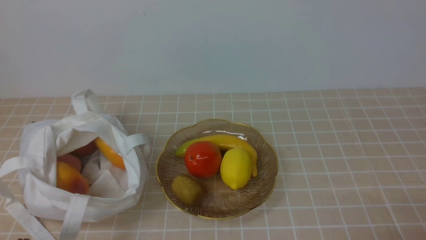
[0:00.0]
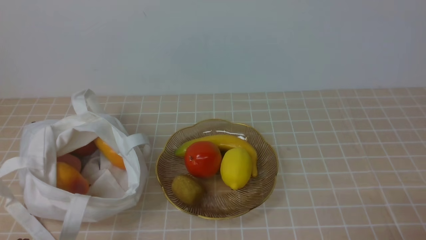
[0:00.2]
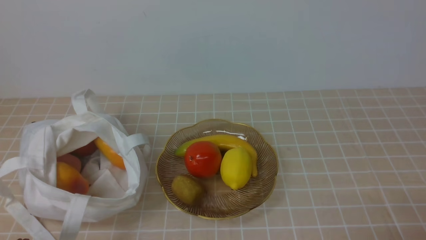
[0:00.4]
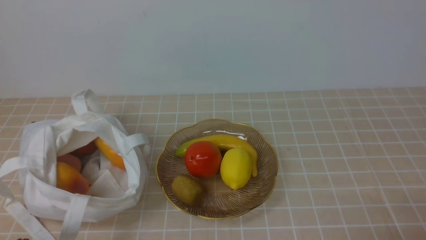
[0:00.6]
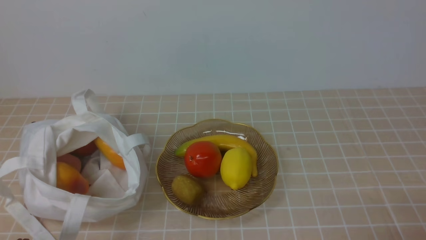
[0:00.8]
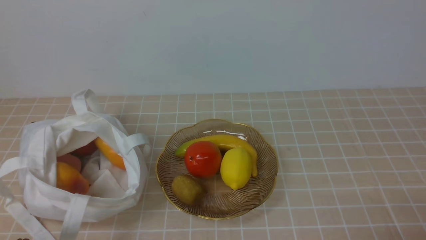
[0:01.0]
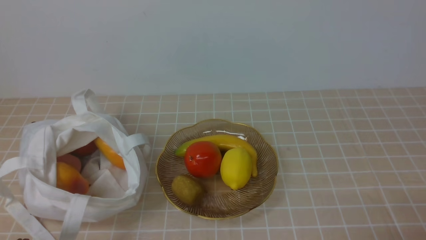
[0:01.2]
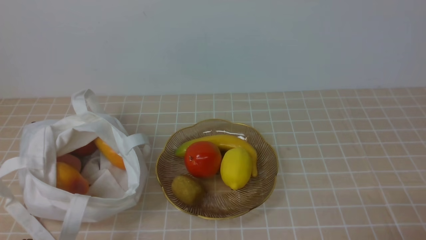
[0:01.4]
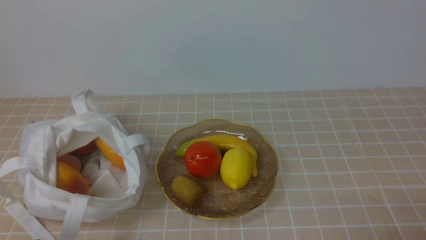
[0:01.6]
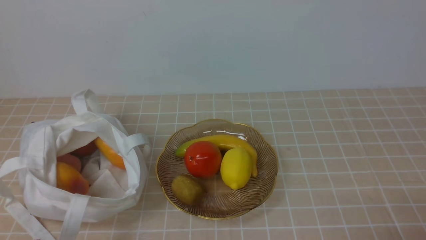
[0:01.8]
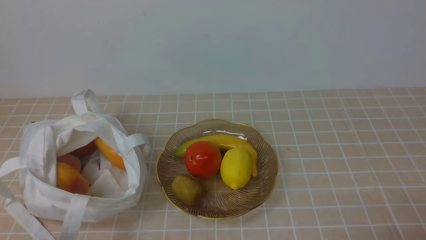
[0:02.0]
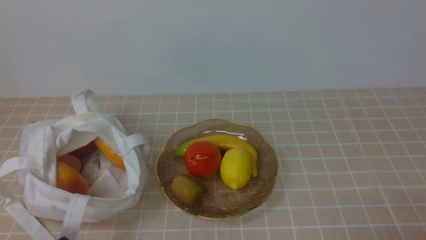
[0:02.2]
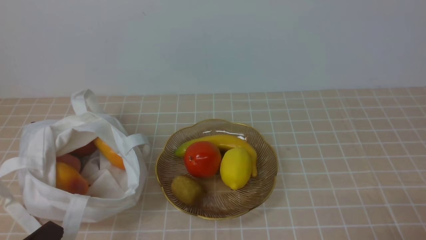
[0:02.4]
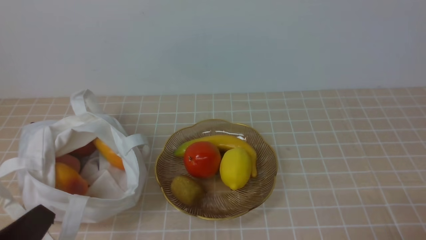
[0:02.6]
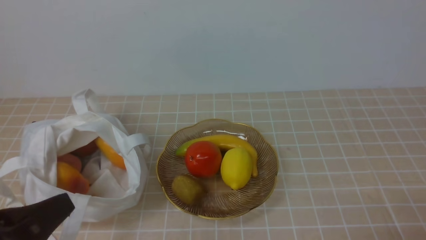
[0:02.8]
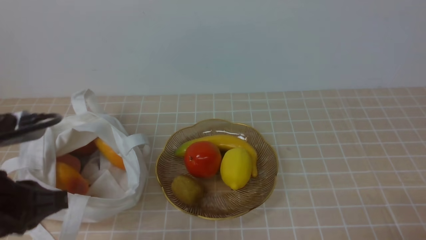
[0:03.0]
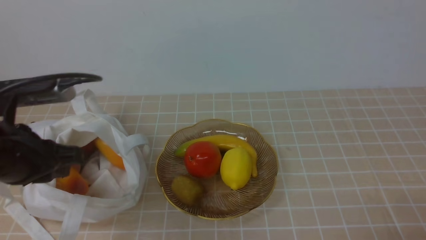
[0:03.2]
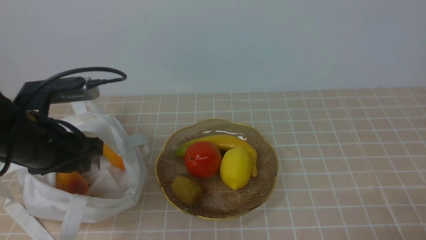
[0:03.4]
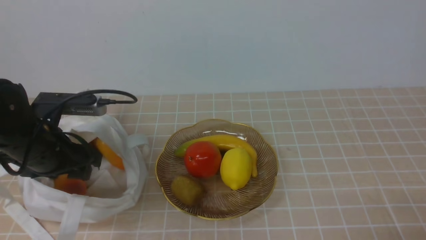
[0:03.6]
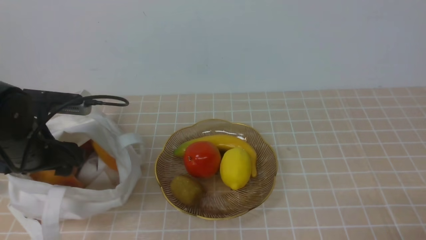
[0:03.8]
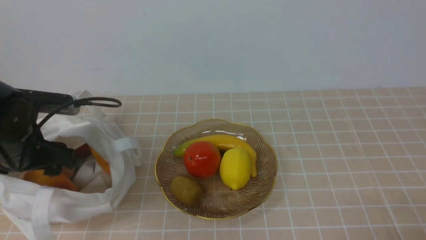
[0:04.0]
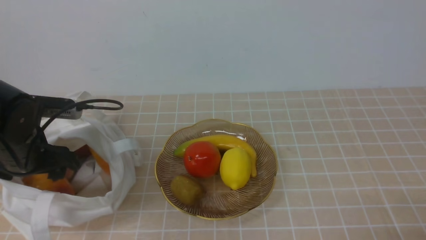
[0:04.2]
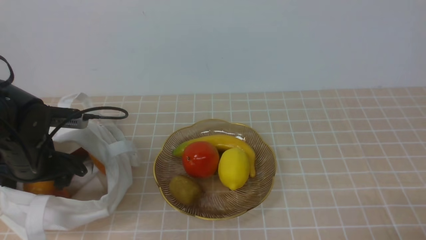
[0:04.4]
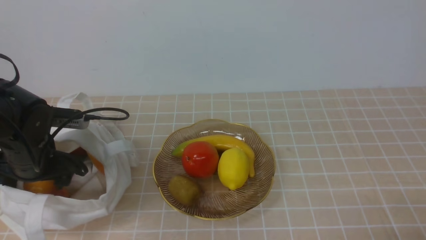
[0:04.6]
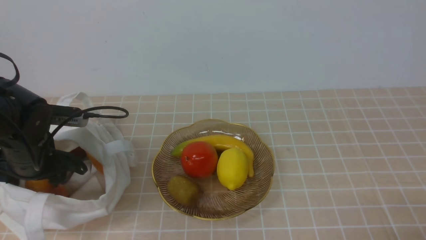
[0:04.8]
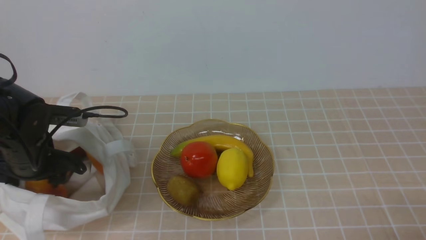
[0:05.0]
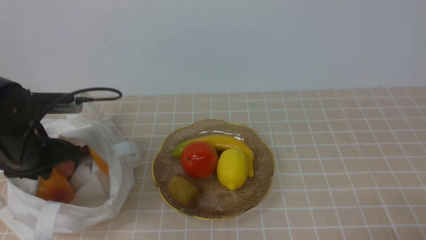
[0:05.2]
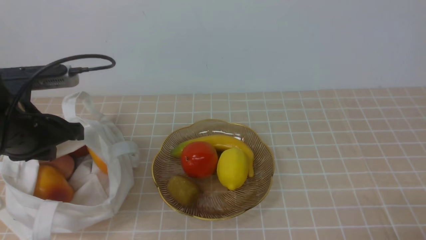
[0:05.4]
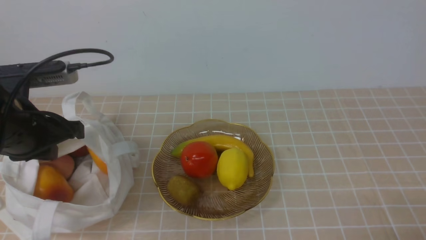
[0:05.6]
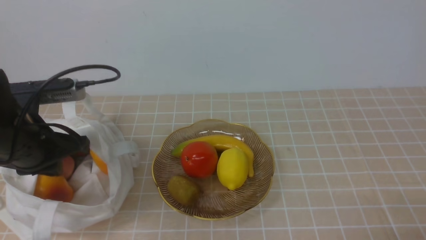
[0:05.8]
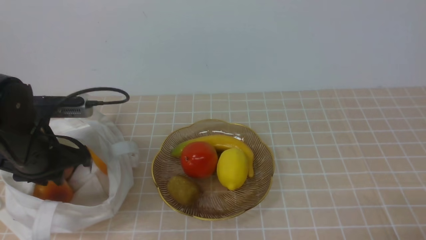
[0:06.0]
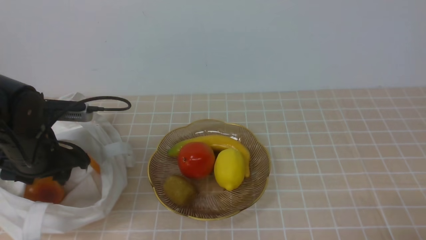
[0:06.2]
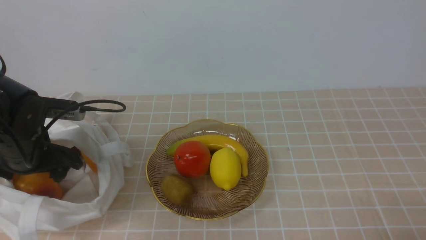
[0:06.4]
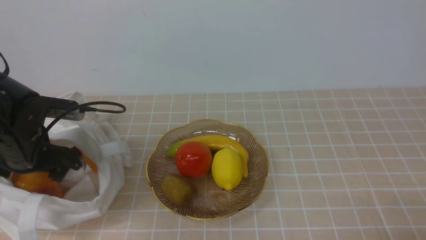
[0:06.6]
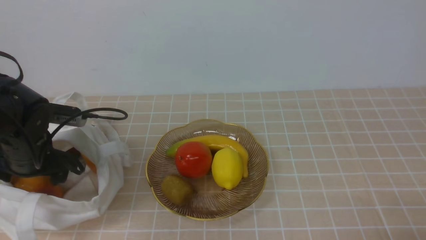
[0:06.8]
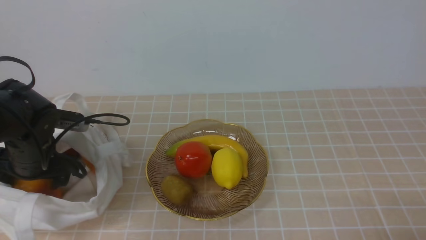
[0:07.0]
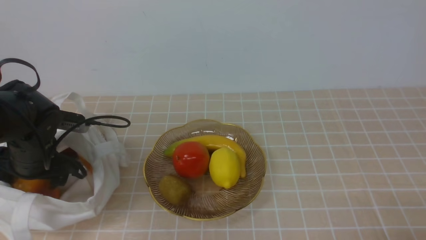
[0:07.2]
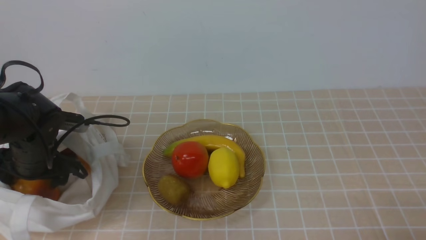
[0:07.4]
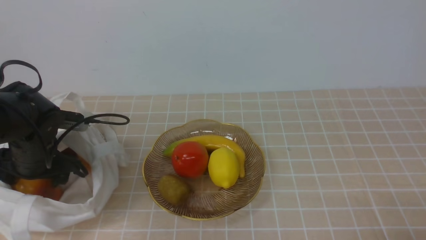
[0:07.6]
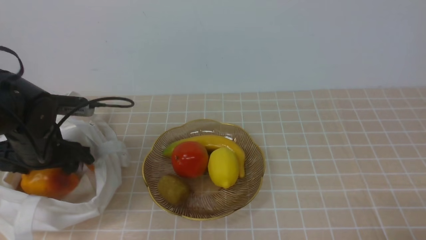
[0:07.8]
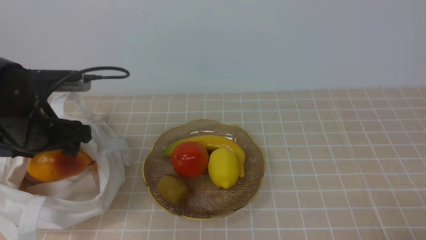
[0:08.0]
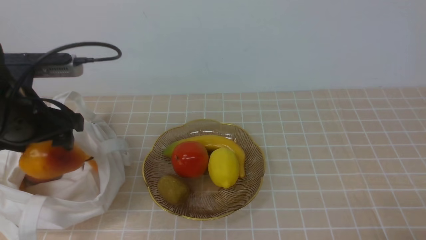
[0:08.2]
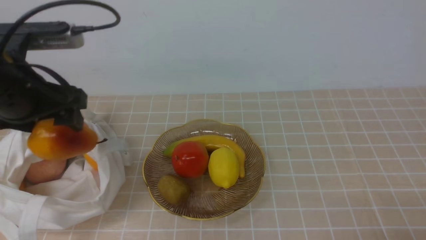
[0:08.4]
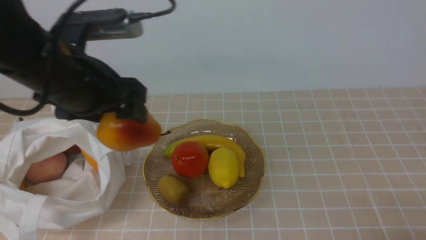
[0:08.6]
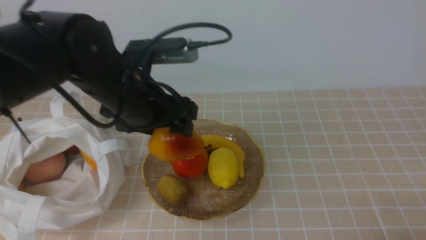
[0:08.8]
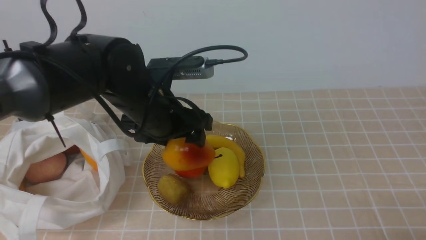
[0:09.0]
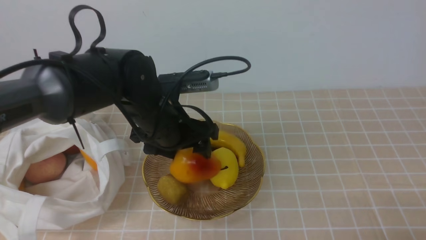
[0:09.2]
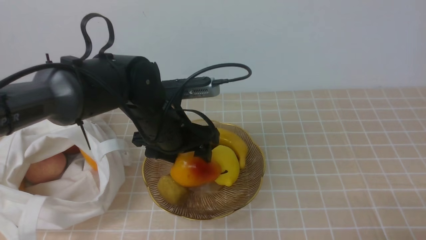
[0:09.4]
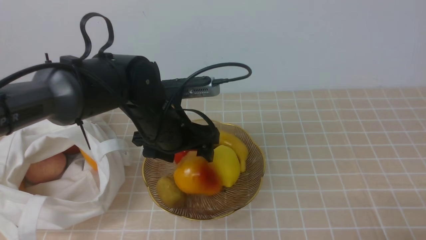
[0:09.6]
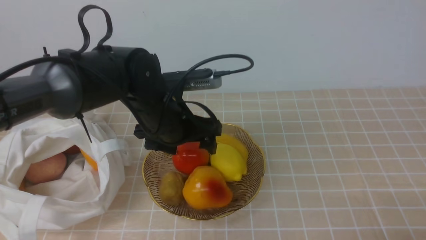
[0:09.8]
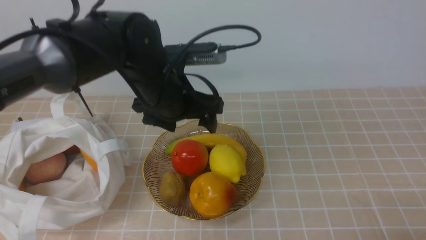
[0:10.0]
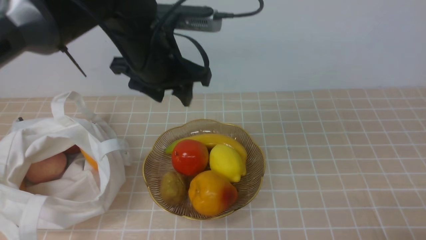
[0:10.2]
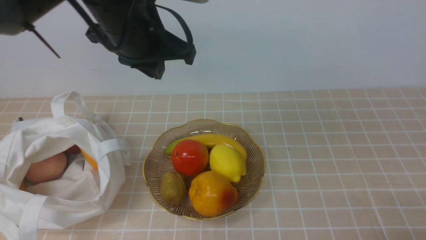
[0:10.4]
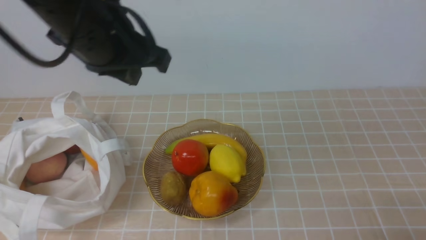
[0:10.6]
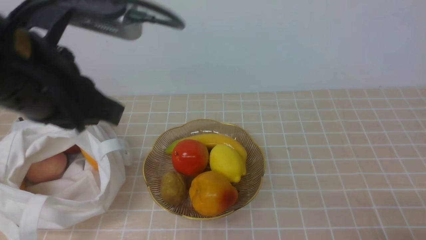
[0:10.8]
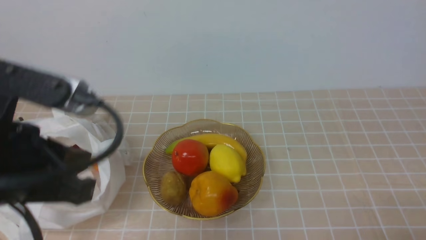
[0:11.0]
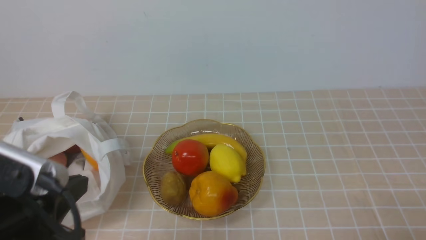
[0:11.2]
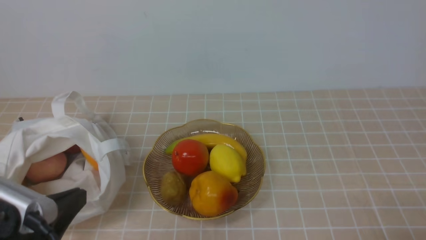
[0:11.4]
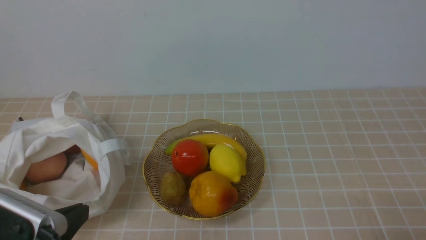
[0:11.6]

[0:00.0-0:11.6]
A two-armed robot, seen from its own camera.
Step, 0:00.0 to 0:07.8: use the left arm to grab a pear from the bag.
Step, 0:08.0 to 0:09.8: use the left arm to put the pear into the empty plate on the right.
0:01.4 to 0:02.8: The left gripper travels upward by approximately 10 cm.
0:02.8 to 0:04.4: The left gripper heads forward, covering approximately 20 cm, and opens up.
0:04.4 to 0:05.8: The left gripper changes place by some 5 cm, and closes its fingers.
0:05.8 to 0:07.2: The left gripper shifts about 5 cm downward, and opens its fingers.
0:07.2 to 0:08.8: The left gripper is displaced to the right and upward by about 20 cm.
0:08.8 to 0:10.2: The left gripper changes place by roughly 5 cm, and closes its fingers.
0:10.2 to 0:11.6: The left gripper goes about 30 cm backward, to the left and downward, and closes up.

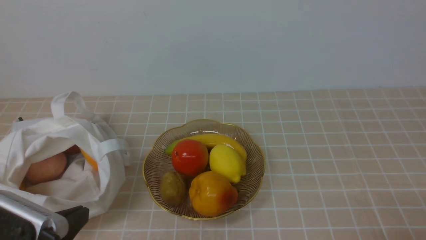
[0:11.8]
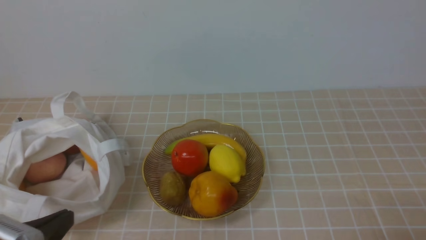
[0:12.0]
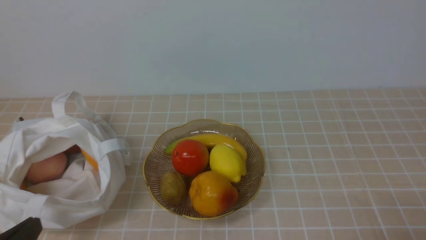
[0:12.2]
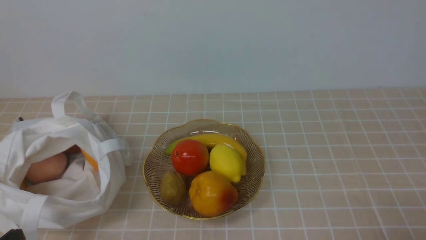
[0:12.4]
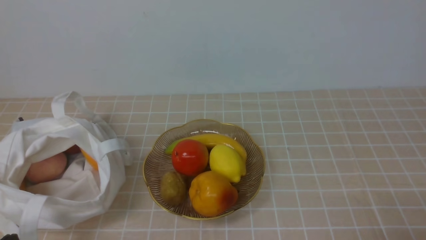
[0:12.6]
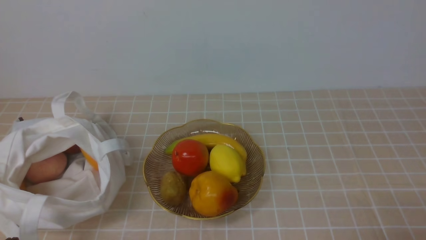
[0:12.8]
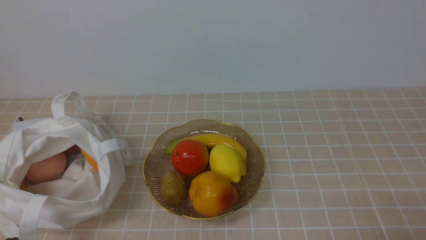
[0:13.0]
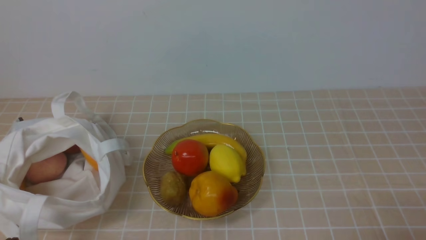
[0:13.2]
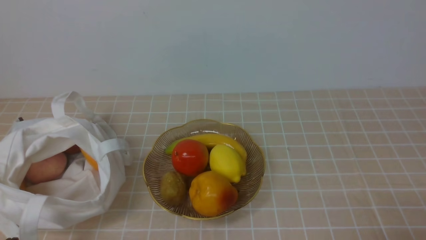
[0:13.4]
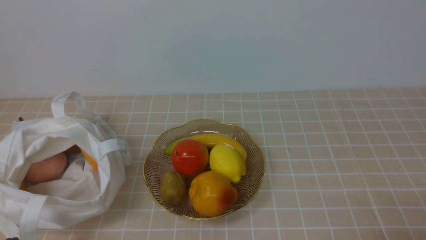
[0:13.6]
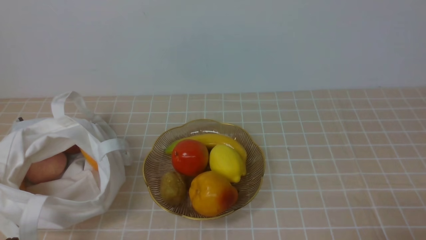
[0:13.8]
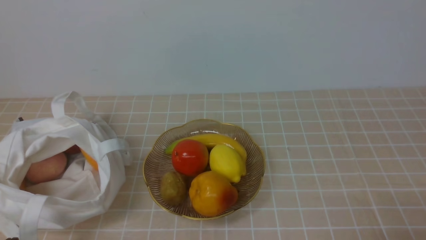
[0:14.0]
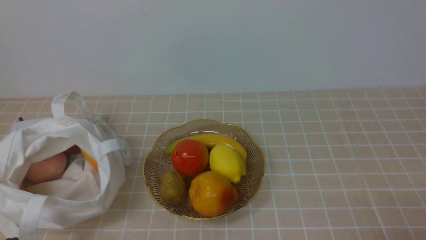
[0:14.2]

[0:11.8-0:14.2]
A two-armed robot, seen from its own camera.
0:11.8 to 0:13.0: The left gripper is displaced downward by about 5 cm.
0:13.0 to 0:14.2: Both grippers stay about where they are.

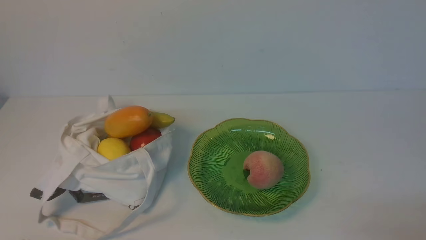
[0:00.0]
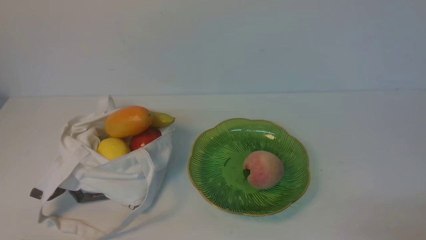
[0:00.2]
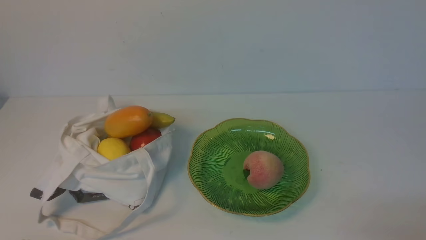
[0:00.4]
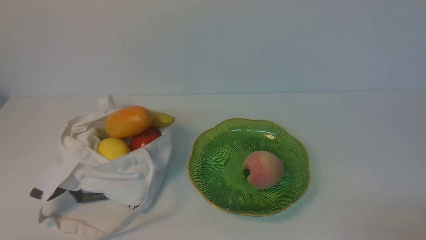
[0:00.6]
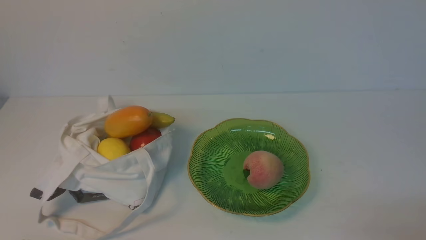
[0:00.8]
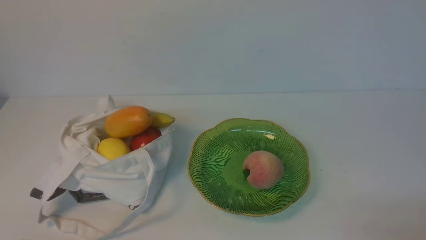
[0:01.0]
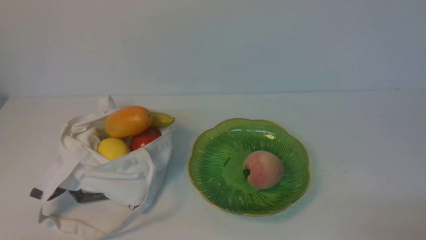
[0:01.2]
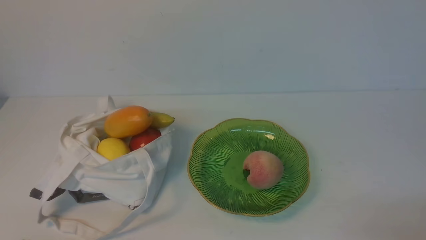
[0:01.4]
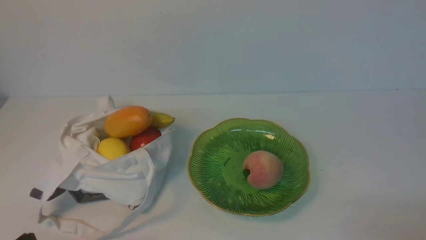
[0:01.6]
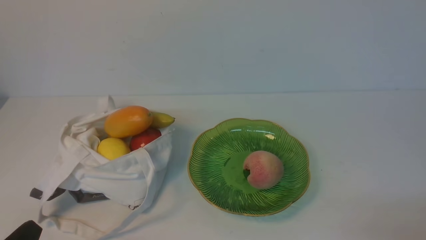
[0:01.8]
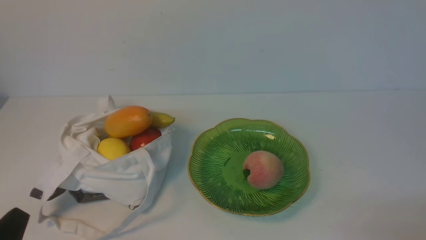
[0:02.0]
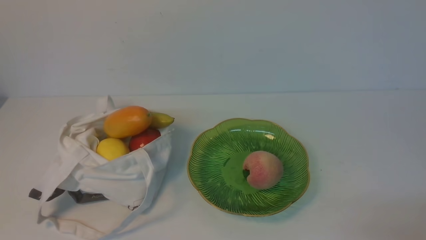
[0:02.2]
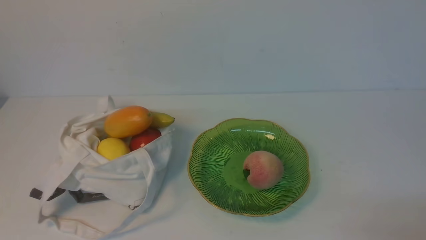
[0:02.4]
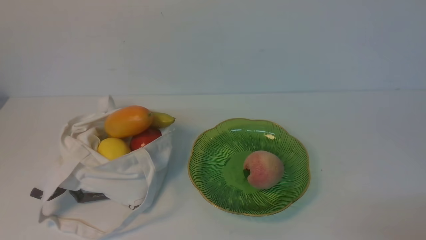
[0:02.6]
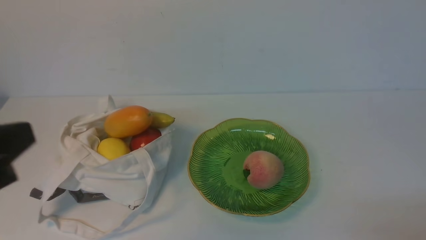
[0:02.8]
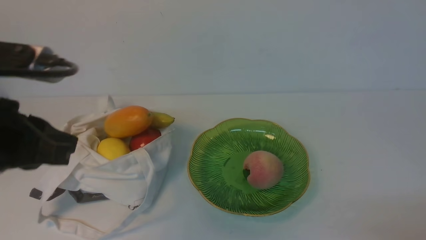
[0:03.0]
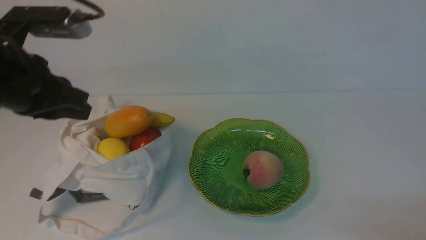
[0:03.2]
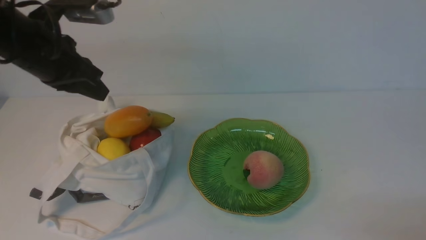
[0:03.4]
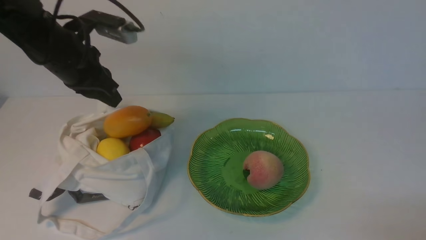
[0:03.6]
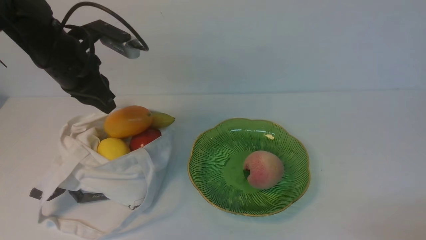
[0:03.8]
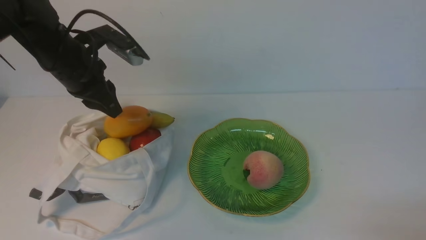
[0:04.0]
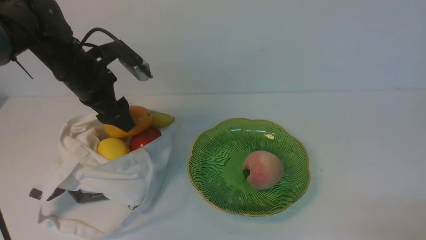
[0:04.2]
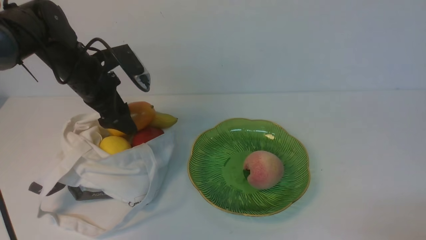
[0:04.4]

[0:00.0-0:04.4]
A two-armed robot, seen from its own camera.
0:01.4 to 0:03.0: The left gripper heads upward and forward, covering about 20 cm.
0:03.0 to 0:04.4: The left gripper moves forward and downward, approximately 30 cm, and opens up.
